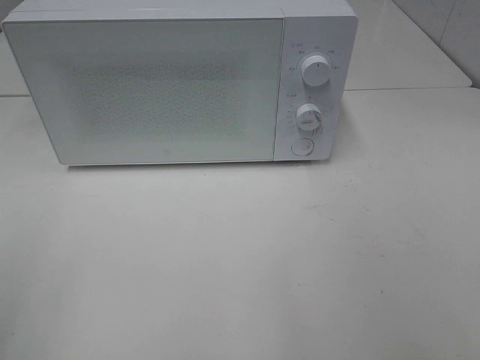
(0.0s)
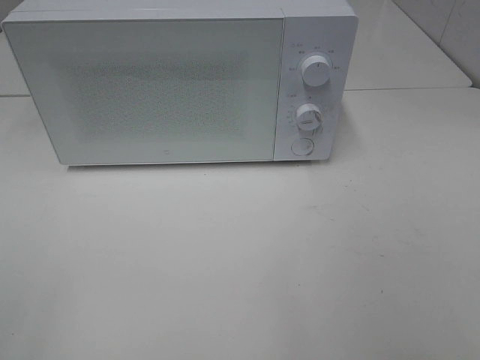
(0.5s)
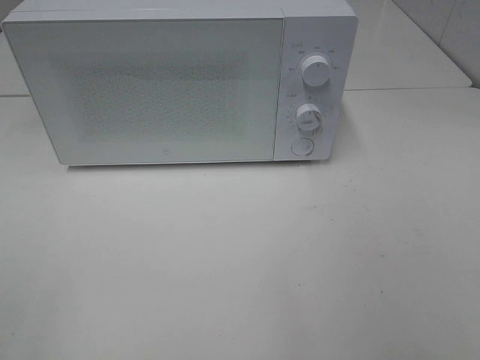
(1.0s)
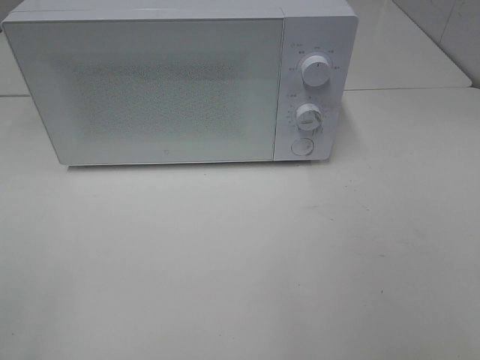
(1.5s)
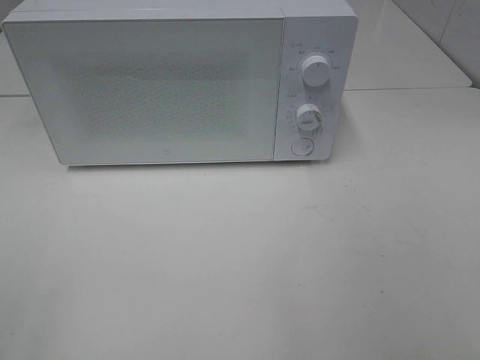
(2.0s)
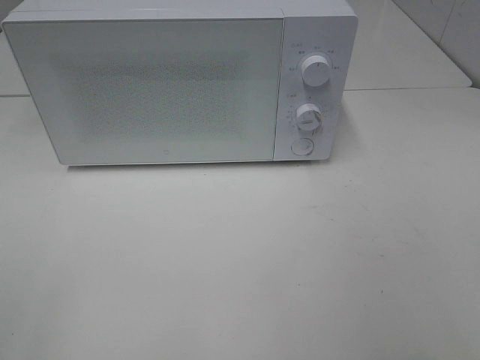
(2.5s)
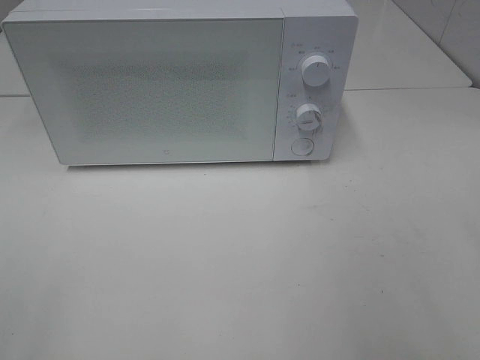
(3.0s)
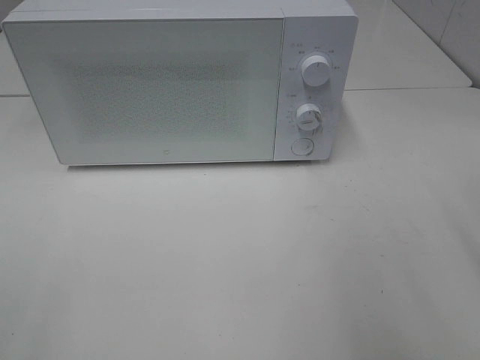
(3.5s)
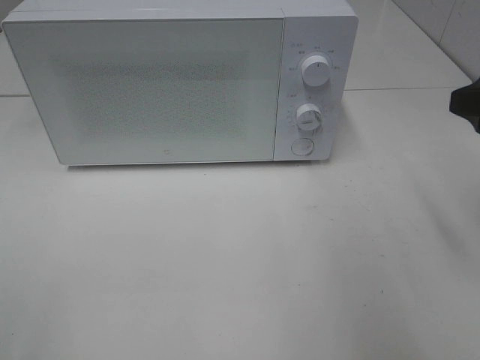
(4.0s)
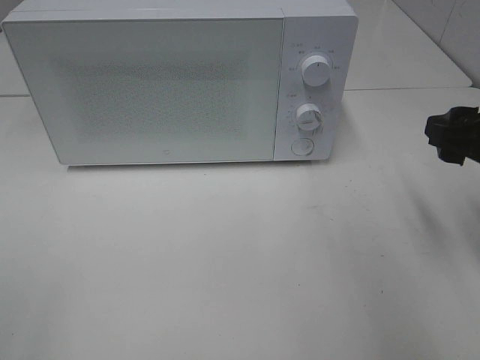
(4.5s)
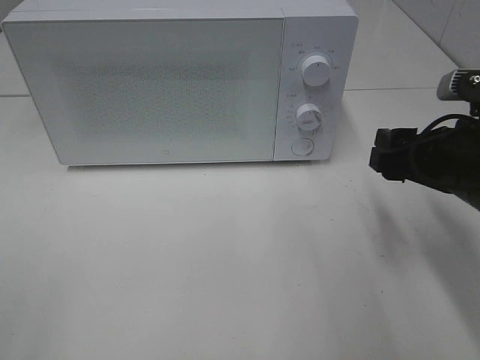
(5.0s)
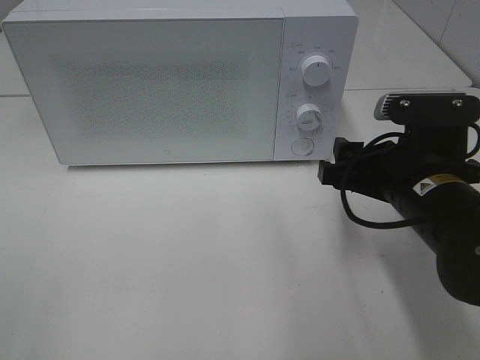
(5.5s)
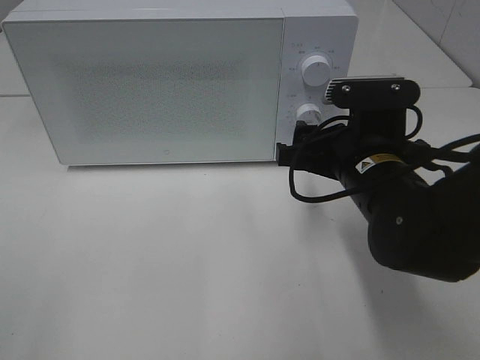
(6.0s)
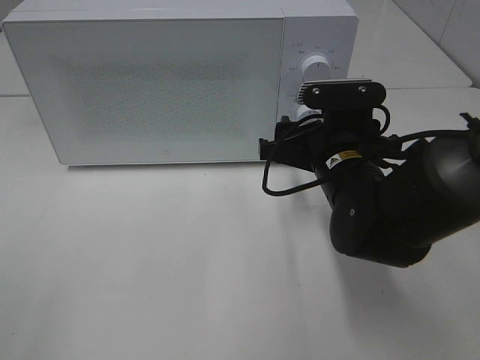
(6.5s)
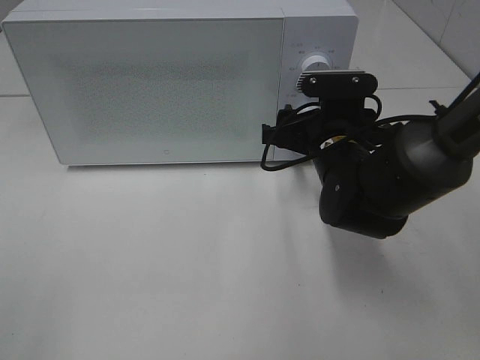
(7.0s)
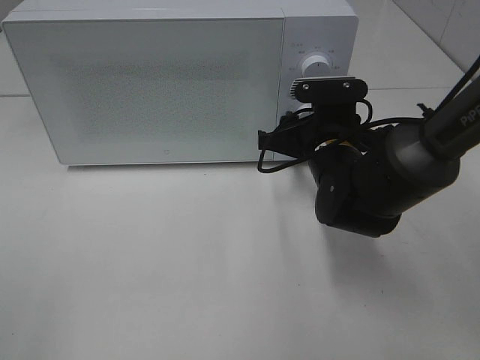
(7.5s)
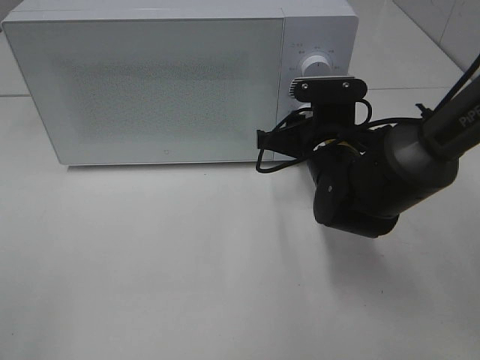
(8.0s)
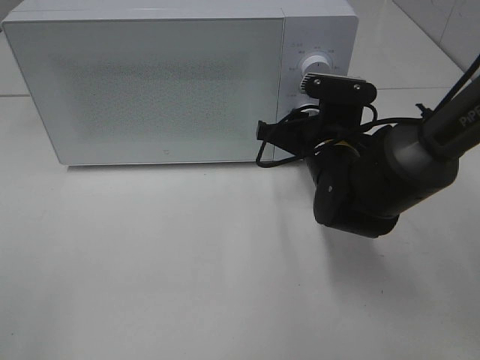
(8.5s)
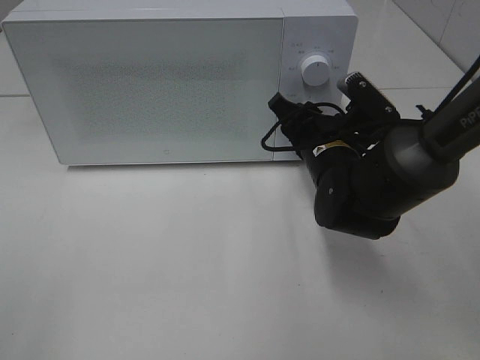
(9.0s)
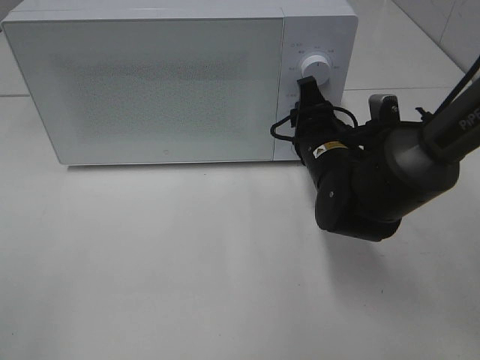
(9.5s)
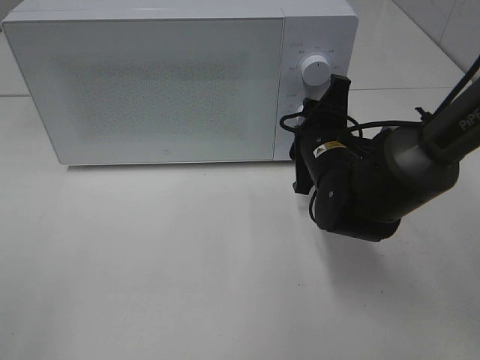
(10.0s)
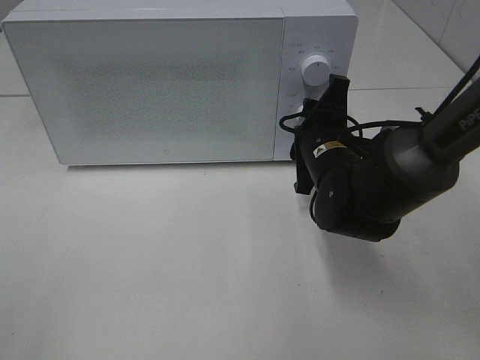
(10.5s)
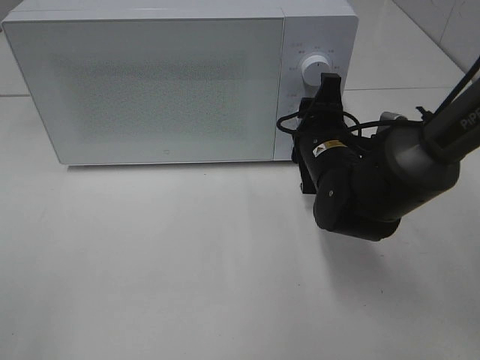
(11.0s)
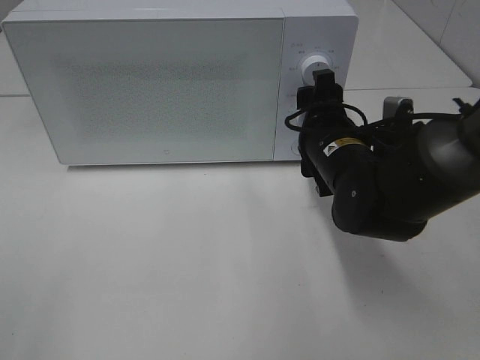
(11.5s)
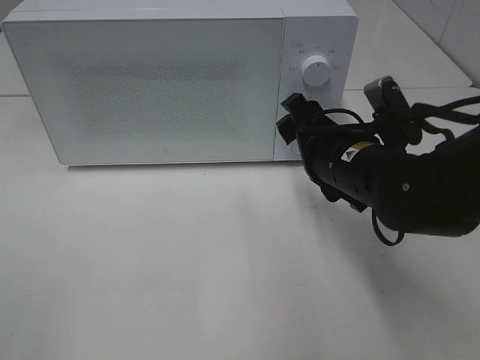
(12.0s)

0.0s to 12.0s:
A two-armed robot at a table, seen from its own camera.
Task of the whole recording: Heat Sandwich.
Step, 0.0s to 11.5s: Right hand: twist timer button.
2.0s to 4.0s: The right gripper travels forward by roughly 20 cm.
4.0s to 6.0s: The right gripper moves to the left and downward, about 20 cm.
6.0s to 8.0s: The right gripper shifts some 5 cm forward, and closes its fingers.
10.0s to 12.0s: The right gripper travels backward by about 5 cm, and opens.

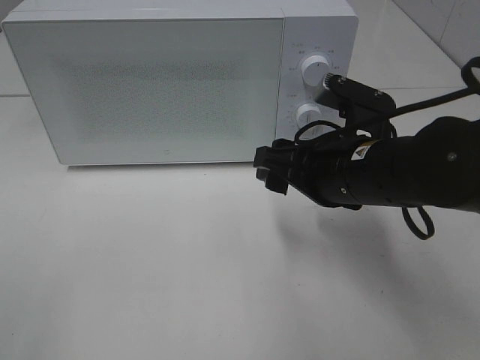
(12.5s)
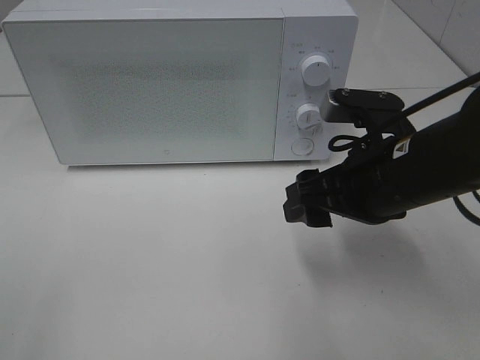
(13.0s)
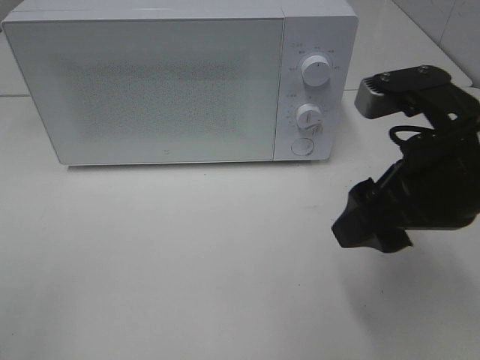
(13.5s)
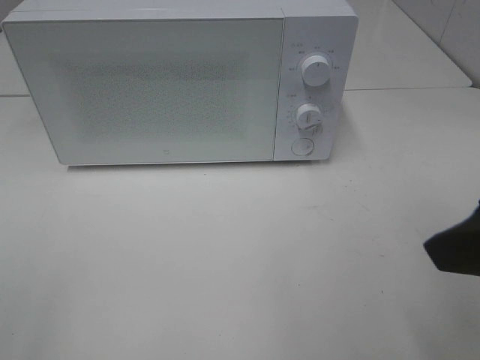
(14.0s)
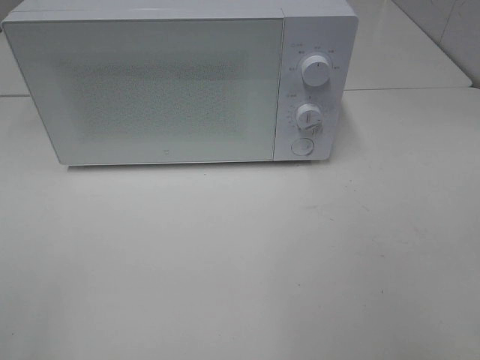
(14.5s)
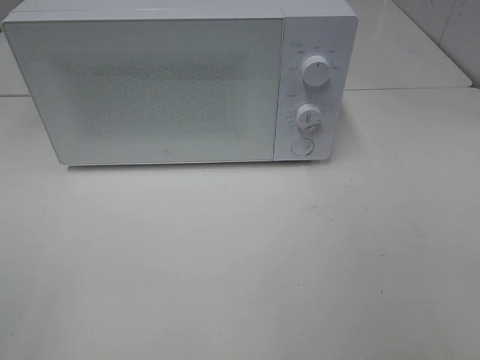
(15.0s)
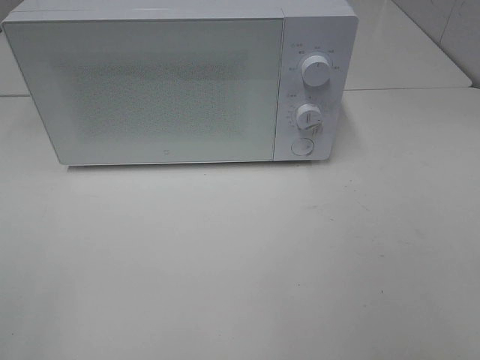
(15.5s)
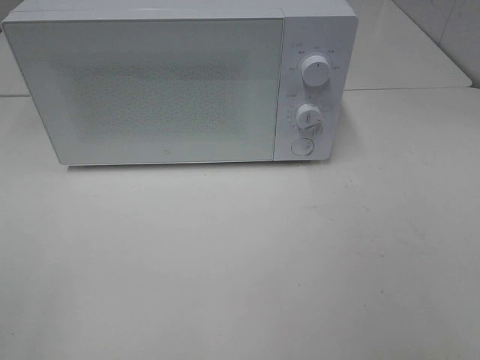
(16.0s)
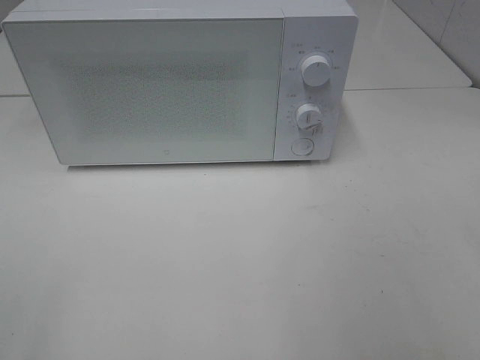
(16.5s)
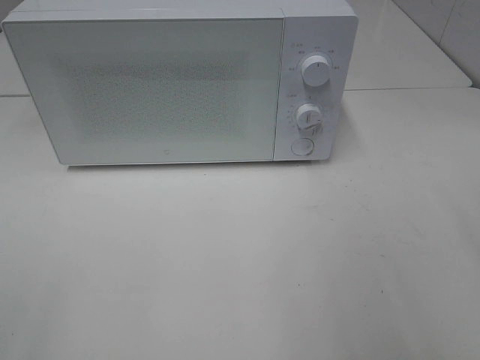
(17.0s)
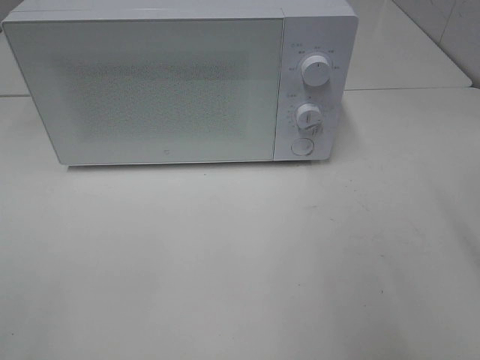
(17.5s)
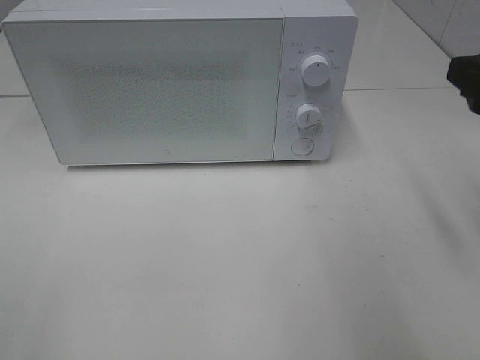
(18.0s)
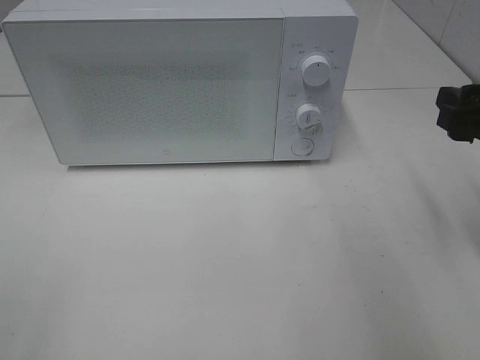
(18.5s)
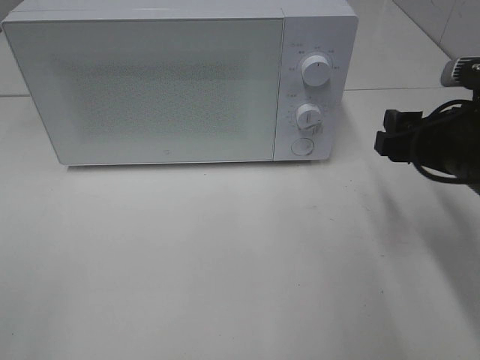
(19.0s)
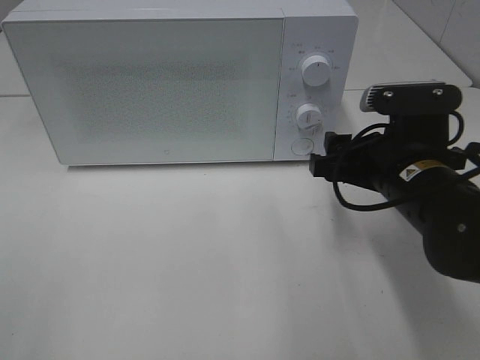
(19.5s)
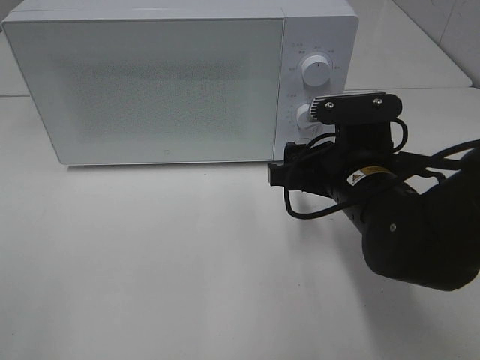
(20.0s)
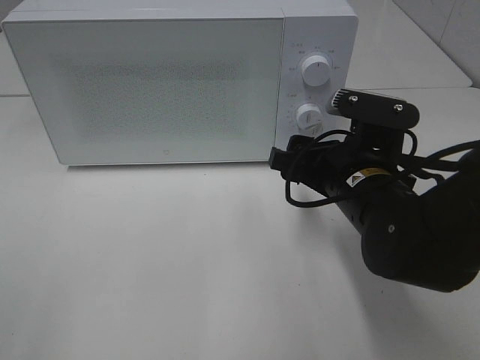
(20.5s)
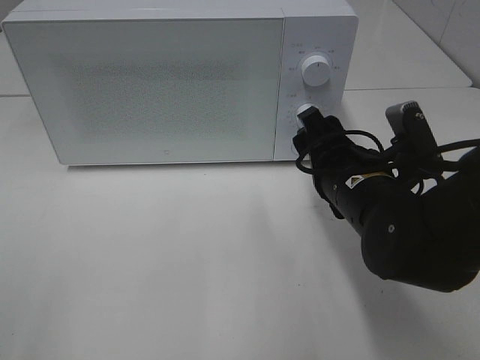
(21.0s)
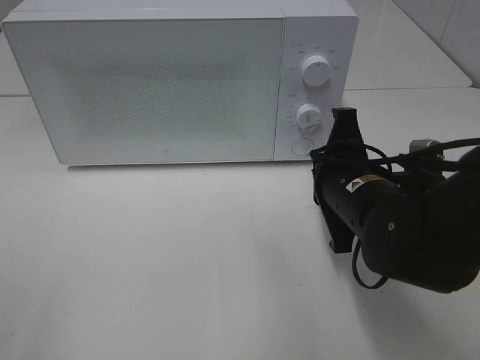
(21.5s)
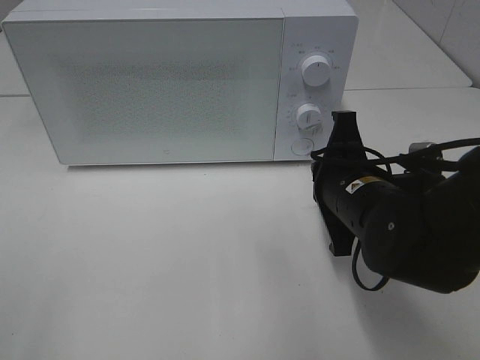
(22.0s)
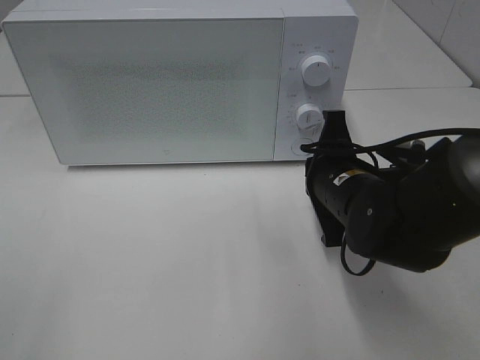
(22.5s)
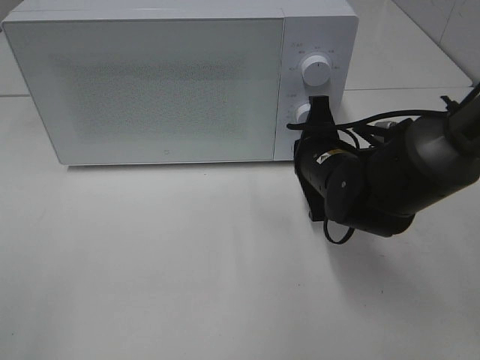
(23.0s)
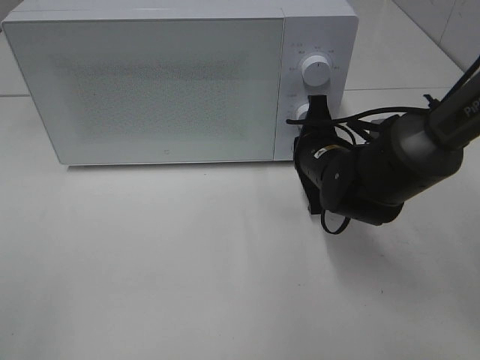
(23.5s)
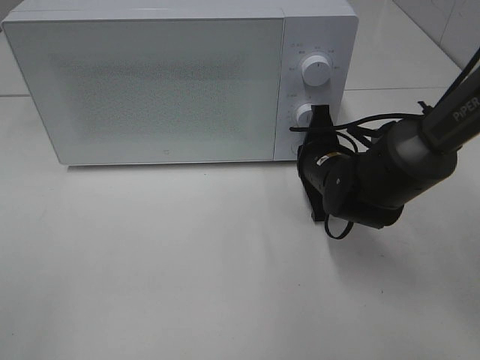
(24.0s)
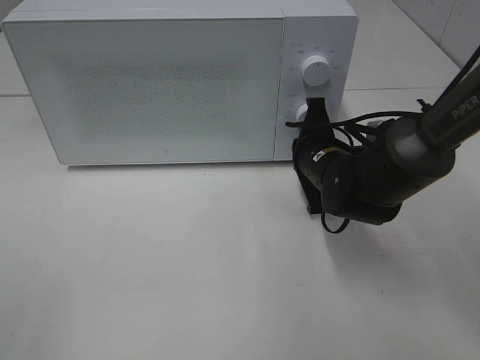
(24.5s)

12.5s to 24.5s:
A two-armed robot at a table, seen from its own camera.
Task of the whole recording: Heat Sandwich.
12.5s to 14.5s: The right gripper shifts some 30 cm backward, upward and to the right.
16.5s to 18.5s: The right gripper moves forward and downward, approximately 20 cm.
18.5s to 20.5s: The right gripper is displaced to the left and downward by some 15 cm.
20.5s to 22.5s: The right gripper closes its fingers.
22.5s to 24.5s: The right gripper is displaced forward by about 5 cm.

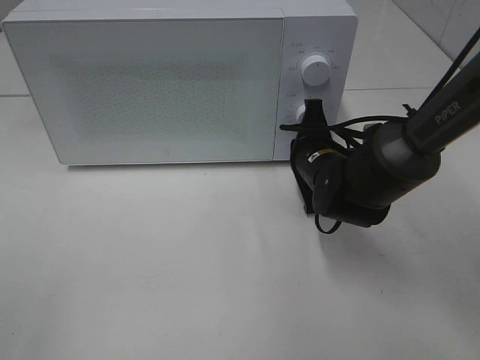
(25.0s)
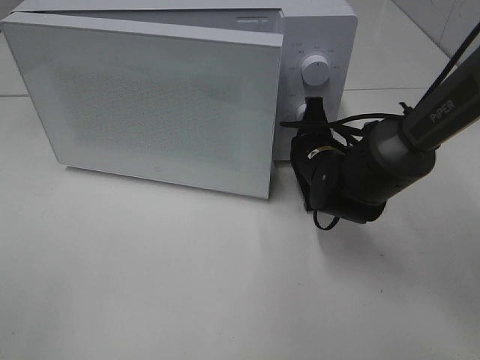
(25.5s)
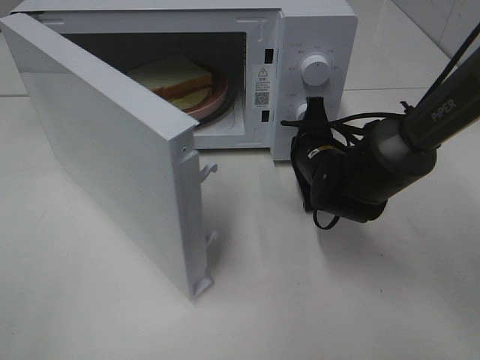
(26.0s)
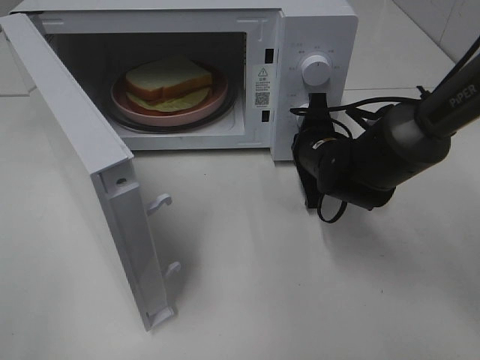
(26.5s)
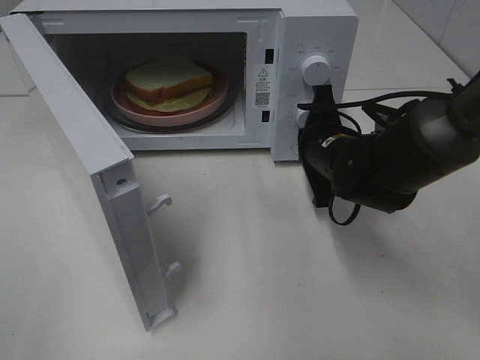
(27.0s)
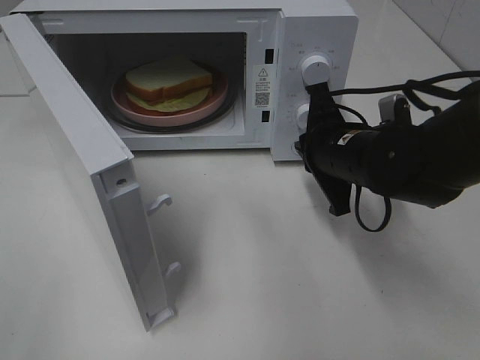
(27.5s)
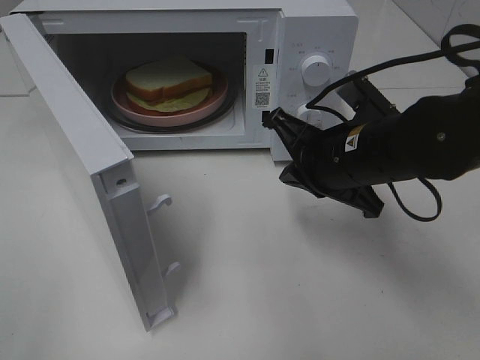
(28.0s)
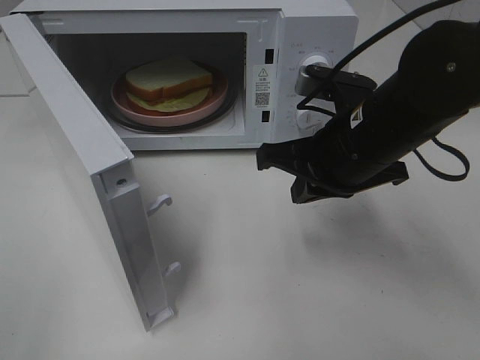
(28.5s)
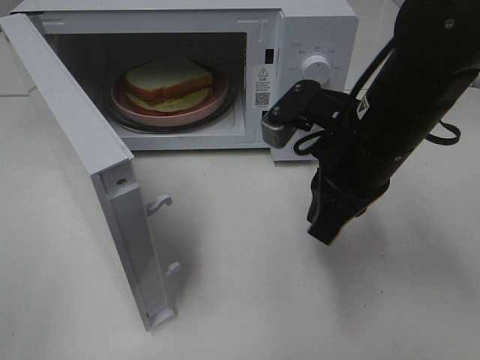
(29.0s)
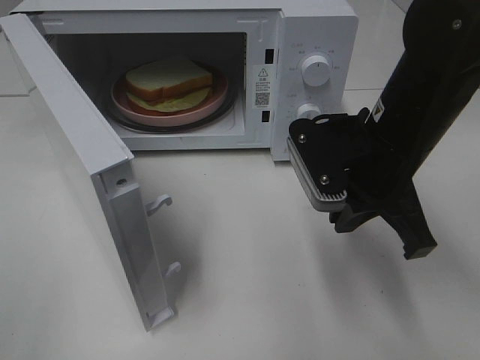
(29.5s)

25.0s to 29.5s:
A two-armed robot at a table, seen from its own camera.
Task of the whole recording: Heat Sandwich.
Step, 25.0s to 27.5s: Right hand: press the switch.
27.0s to 29.5s: The right gripper moves upward and backward, some 15 cm.
